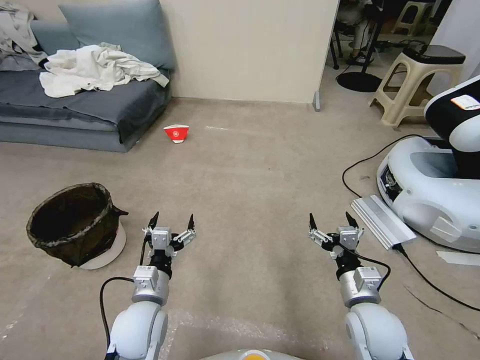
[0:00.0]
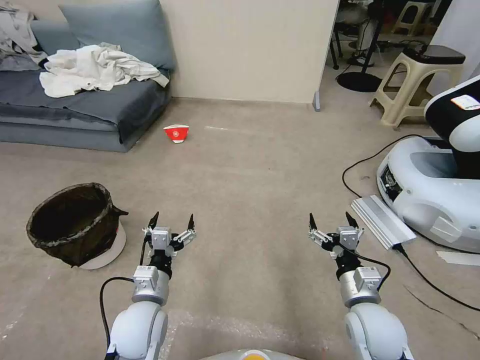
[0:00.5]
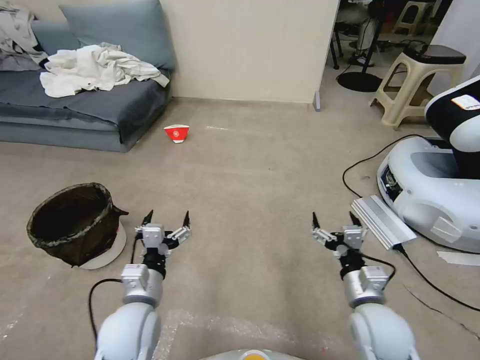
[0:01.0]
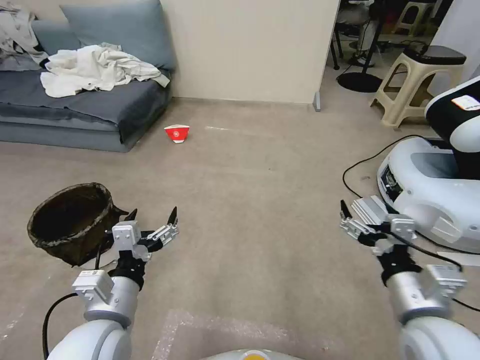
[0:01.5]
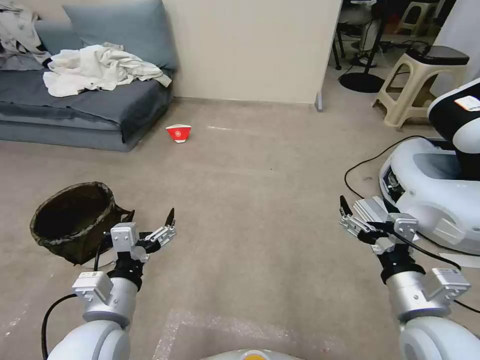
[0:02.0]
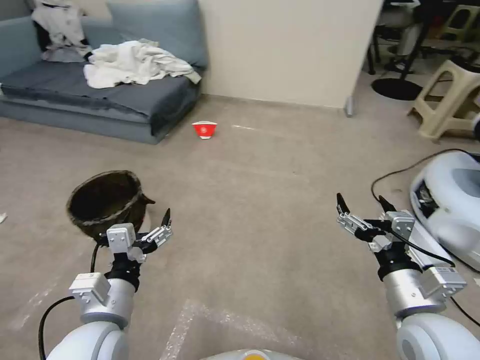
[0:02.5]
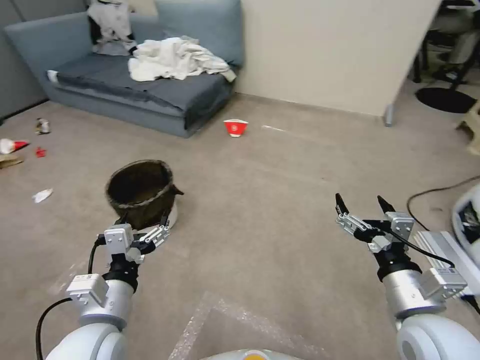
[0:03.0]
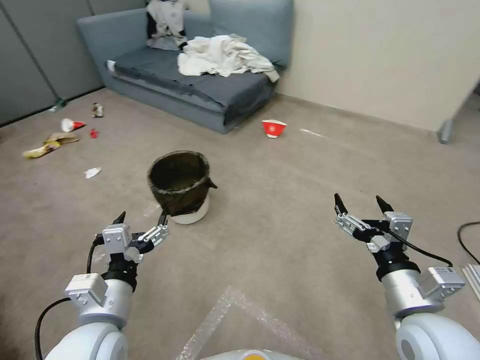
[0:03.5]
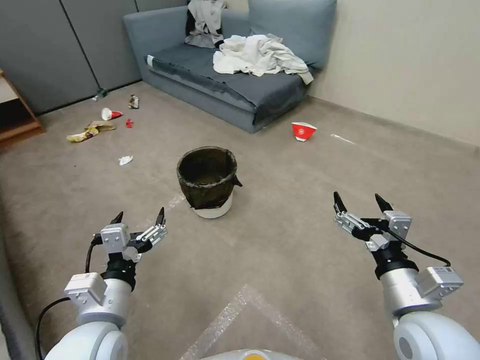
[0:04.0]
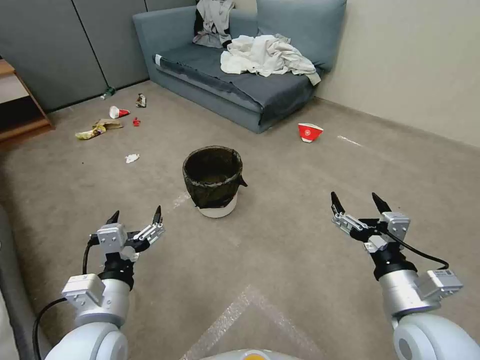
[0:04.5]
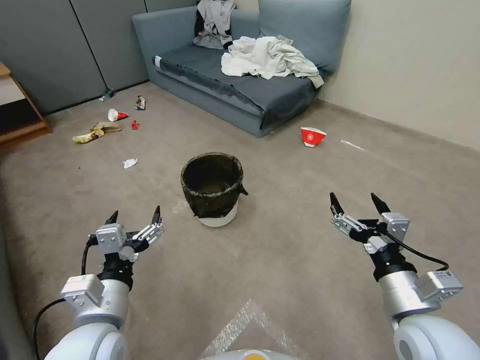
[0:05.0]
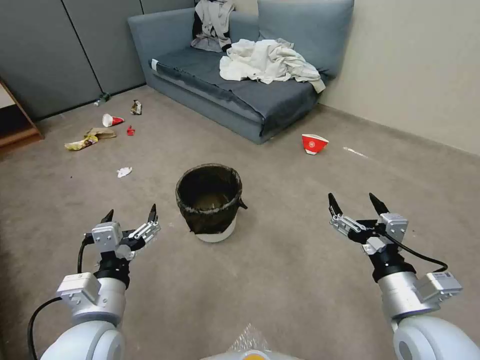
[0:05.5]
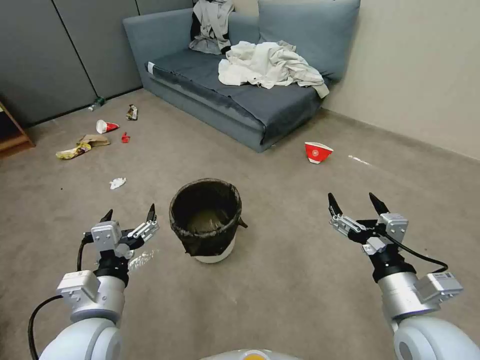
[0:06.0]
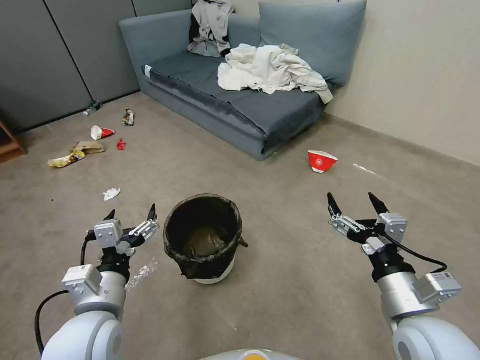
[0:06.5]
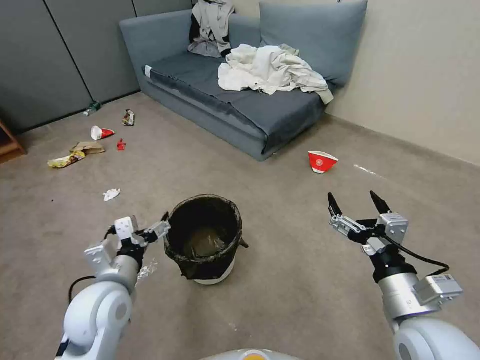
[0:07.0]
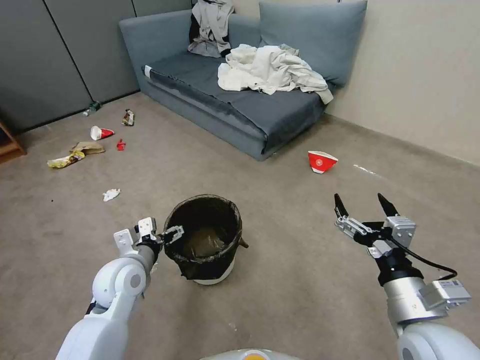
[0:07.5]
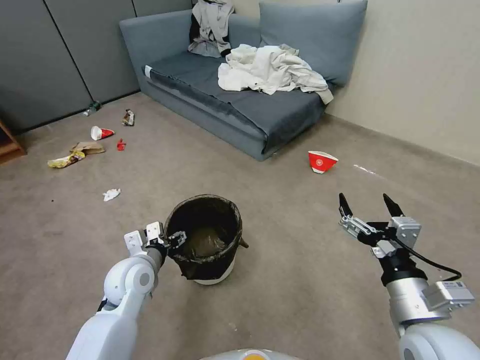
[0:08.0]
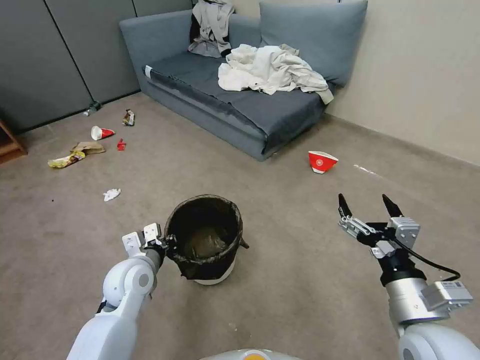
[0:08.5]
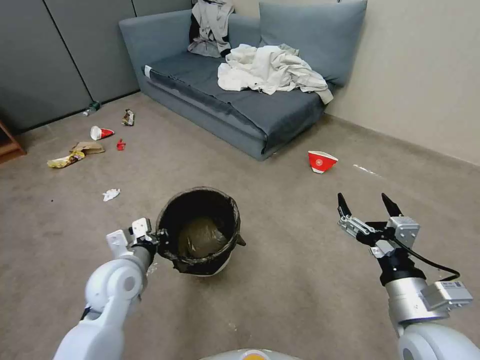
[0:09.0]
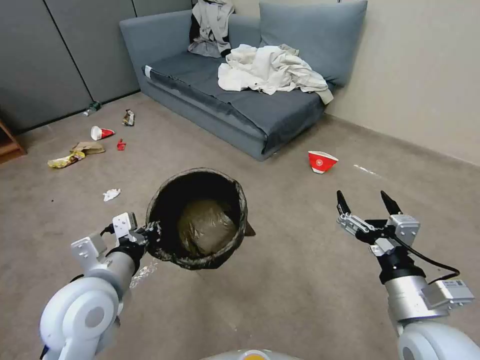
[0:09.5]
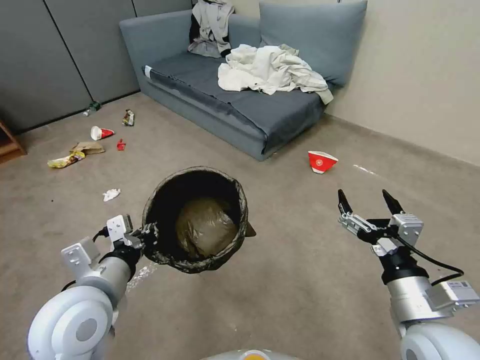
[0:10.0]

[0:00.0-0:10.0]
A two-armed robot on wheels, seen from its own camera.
Task of the whole recording: Pick up the trash can from the floor.
0:06.0 to 0:08.0: The left gripper shifts roughly 15 cm forward and downward, and closes.
0:08.0 to 0:10.0: The left gripper goes some 15 cm upward and backward, and closes.

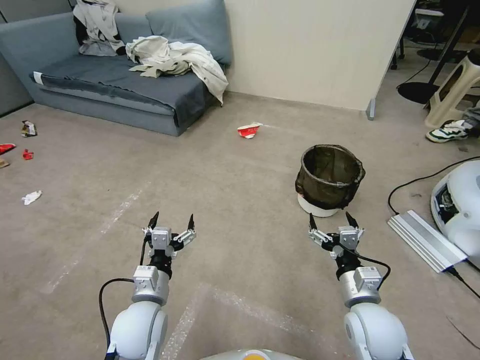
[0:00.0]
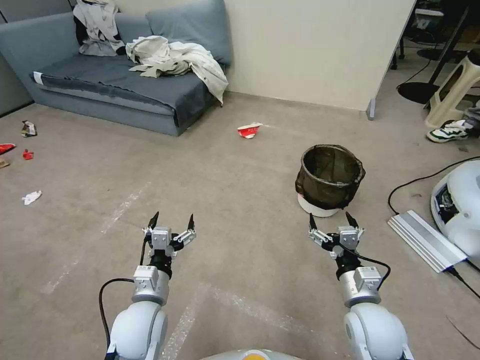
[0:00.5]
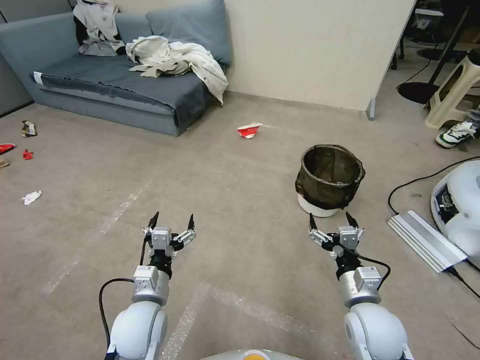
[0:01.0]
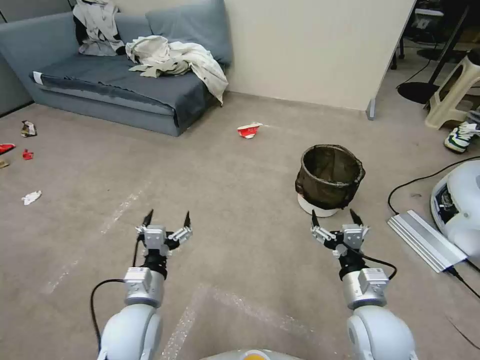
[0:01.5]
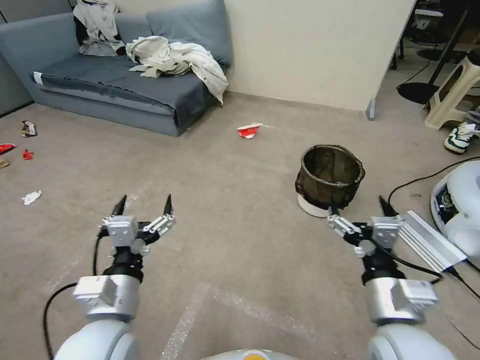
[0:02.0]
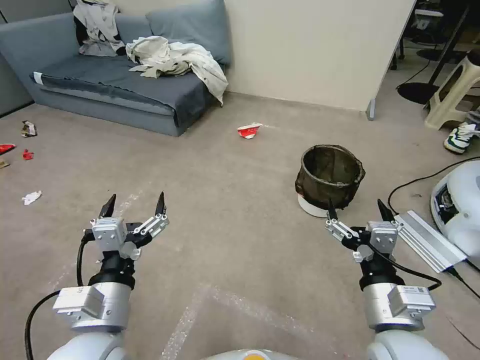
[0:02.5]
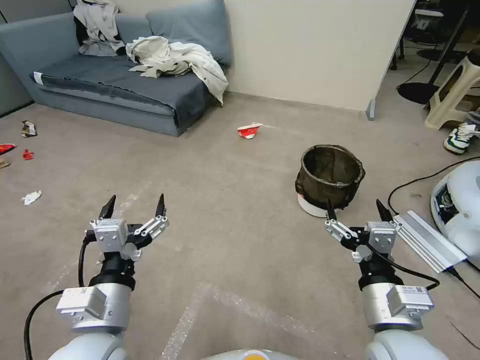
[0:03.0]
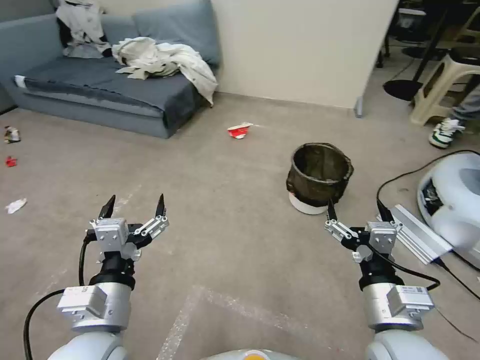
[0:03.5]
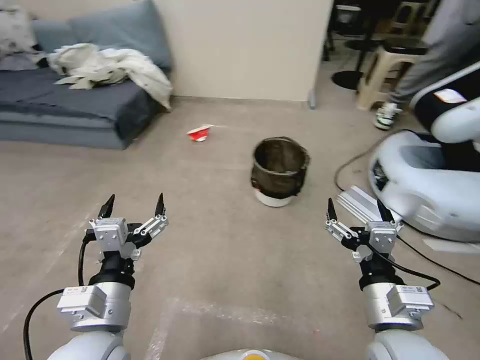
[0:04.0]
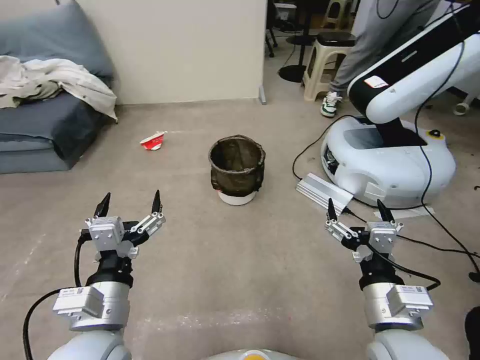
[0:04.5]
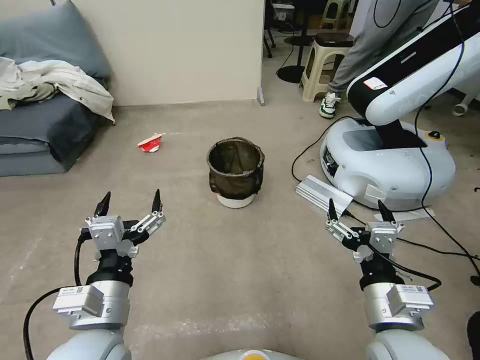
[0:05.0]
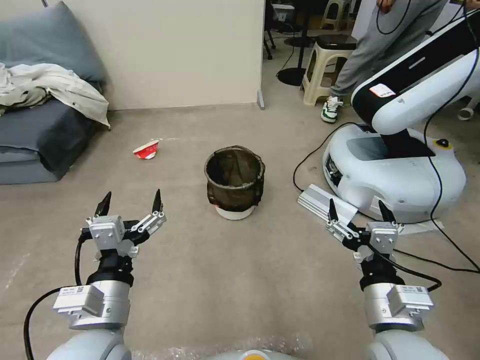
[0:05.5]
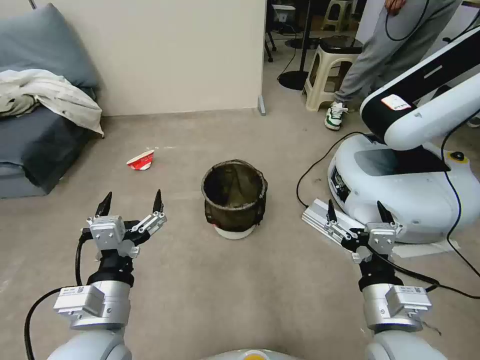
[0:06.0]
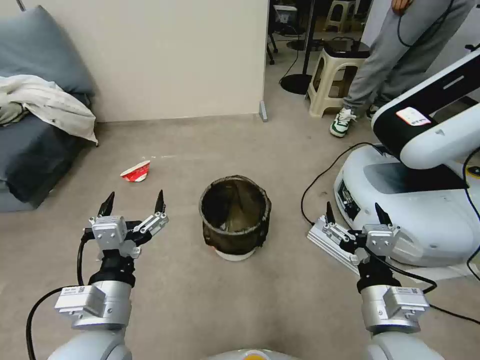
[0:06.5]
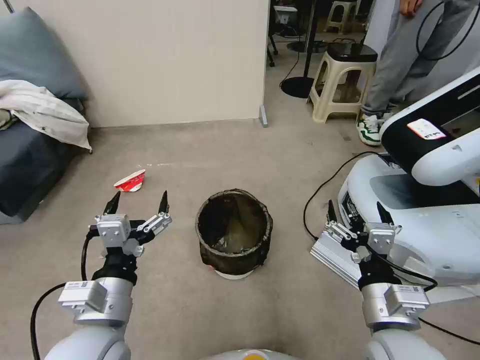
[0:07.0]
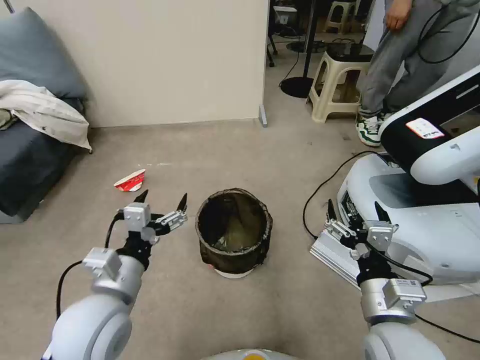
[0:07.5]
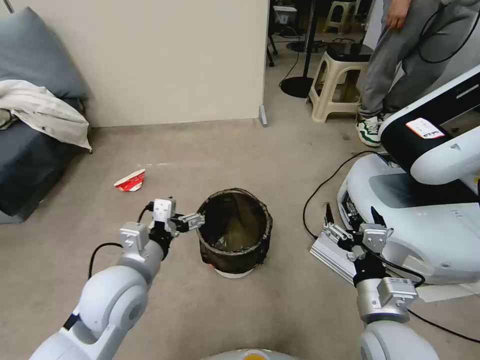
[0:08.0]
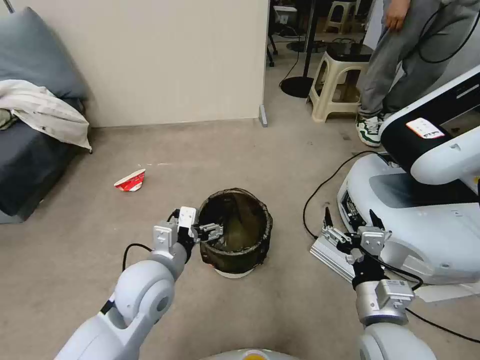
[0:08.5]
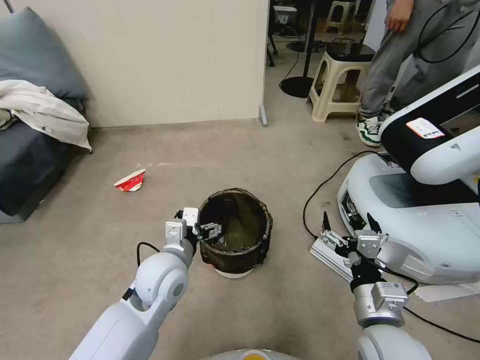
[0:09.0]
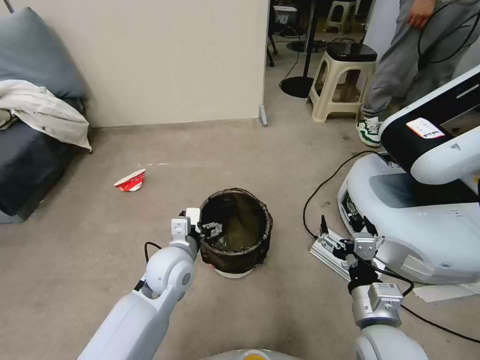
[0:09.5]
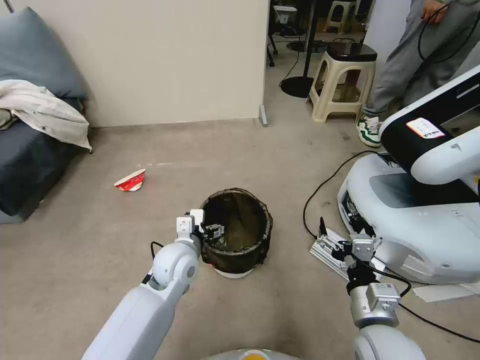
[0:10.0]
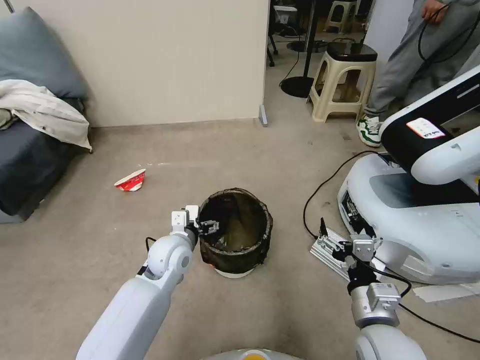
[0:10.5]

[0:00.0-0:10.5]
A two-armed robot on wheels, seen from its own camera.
Task of the whole recording: Pick up the trash can from the floor.
0:06.5 to 0:08.5: The left gripper goes approximately 10 cm forward.
0:08.5 to 0:10.5: The left gripper travels forward and downward by about 10 cm.

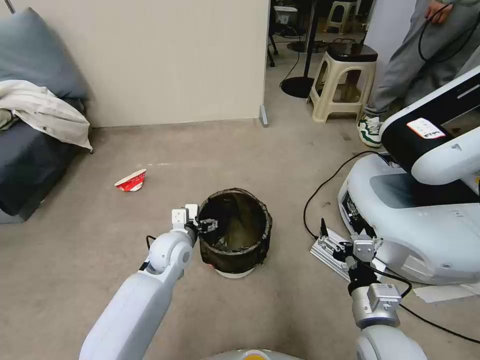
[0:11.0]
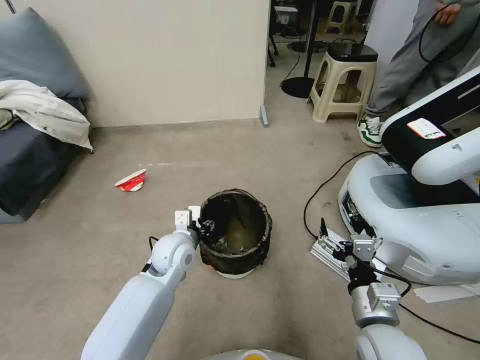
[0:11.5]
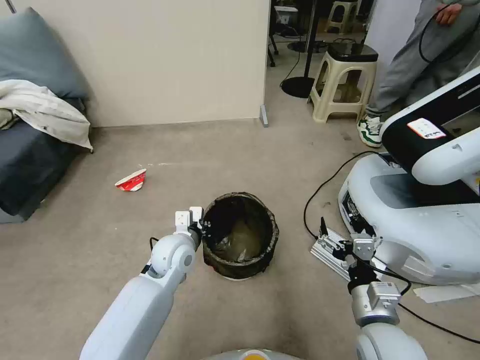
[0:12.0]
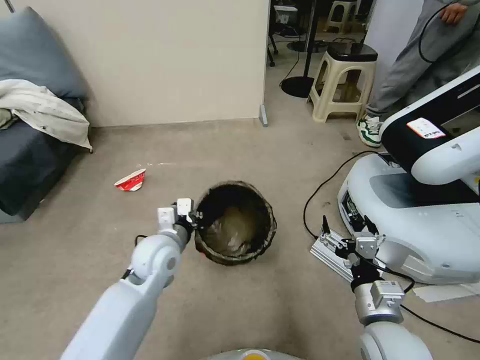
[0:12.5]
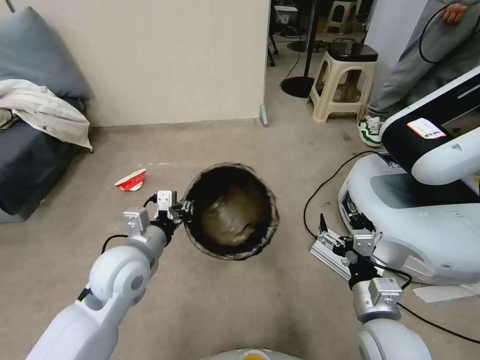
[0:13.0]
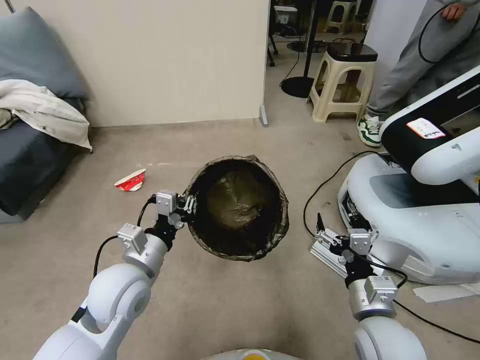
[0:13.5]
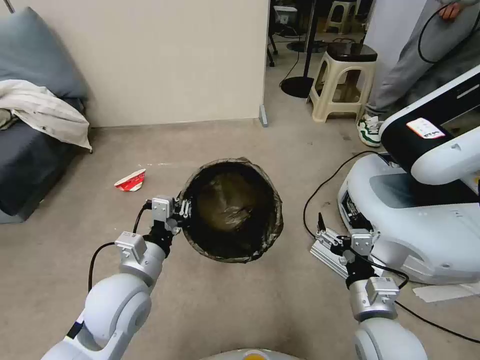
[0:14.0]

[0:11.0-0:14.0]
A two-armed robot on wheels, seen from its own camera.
Task of the whole recording: Pick up the trash can from the floor.
0:11.0 to 0:12.5: The left gripper ends up roughly 5 cm from where it was, and closes up.
0:12.5 to 0:14.0: The left gripper heads backward, covering roughly 10 cm.

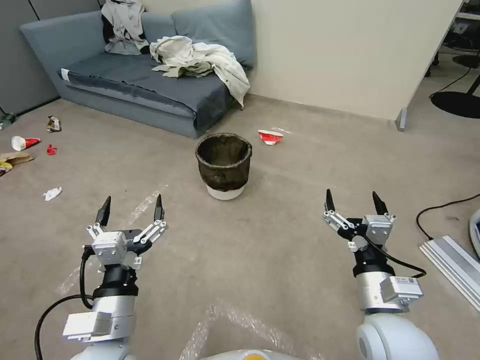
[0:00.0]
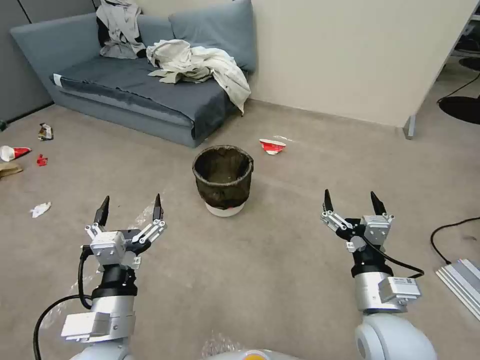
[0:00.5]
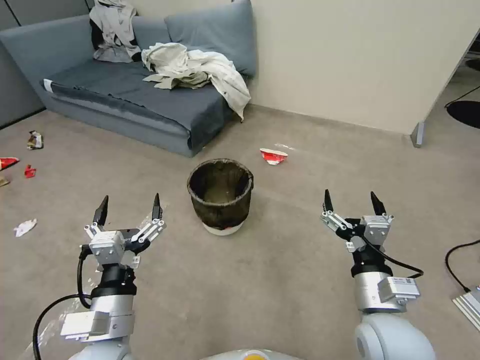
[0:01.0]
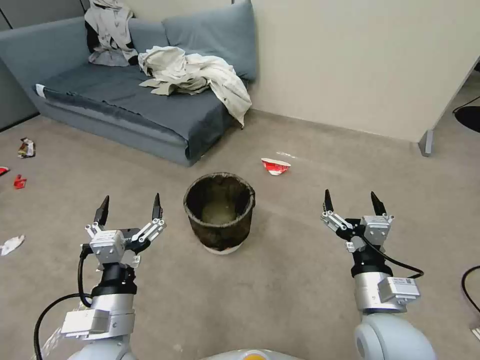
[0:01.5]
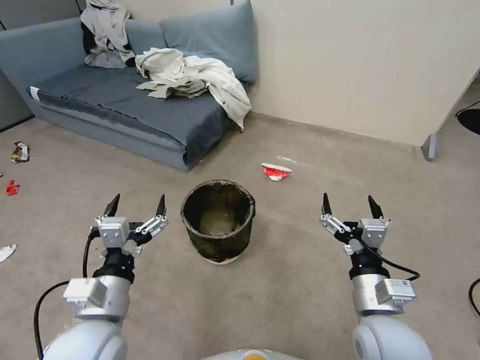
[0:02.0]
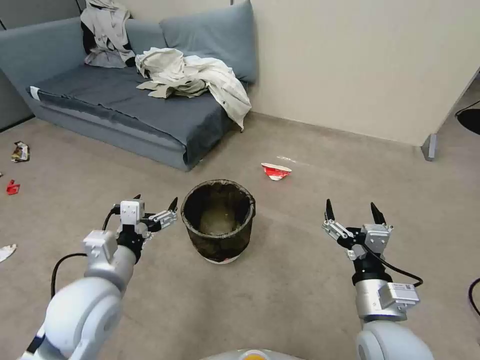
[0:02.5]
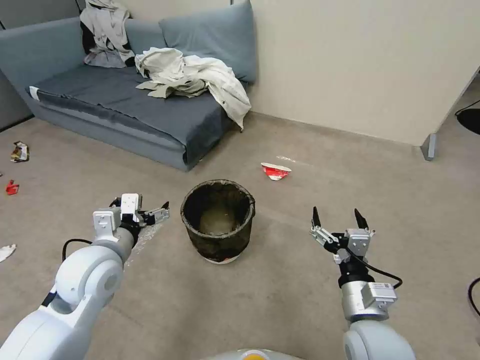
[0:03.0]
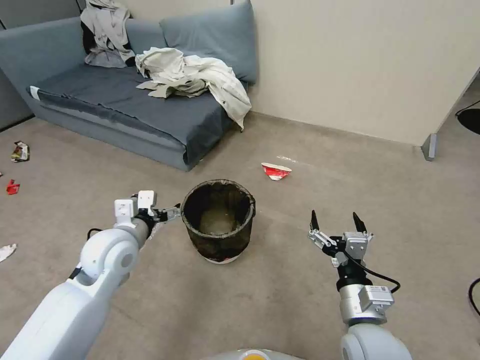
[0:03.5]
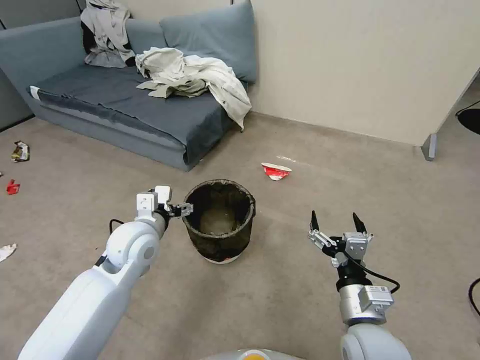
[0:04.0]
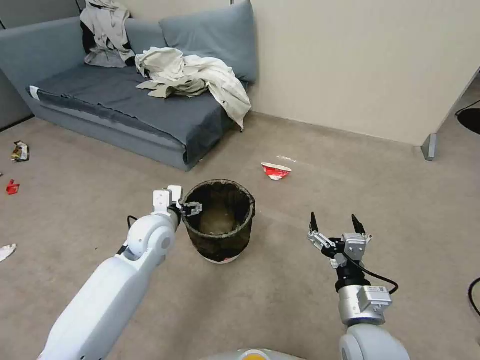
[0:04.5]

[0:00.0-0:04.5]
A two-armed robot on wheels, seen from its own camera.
Task of the whole recording: Pick up the trash can from the floor.
0:02.0 to 0:04.5: The left gripper shifts approximately 20 cm forward.
